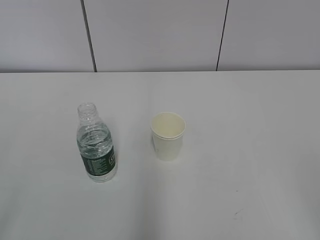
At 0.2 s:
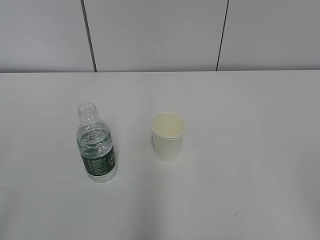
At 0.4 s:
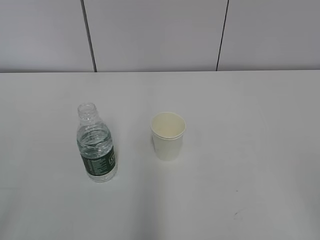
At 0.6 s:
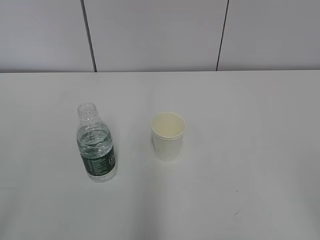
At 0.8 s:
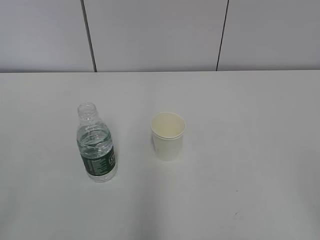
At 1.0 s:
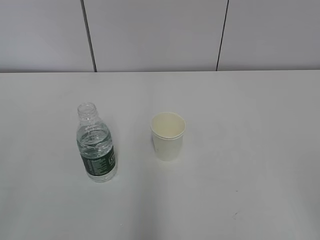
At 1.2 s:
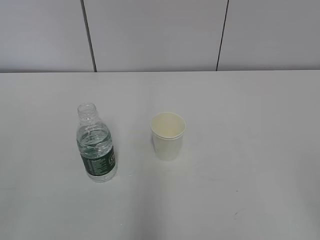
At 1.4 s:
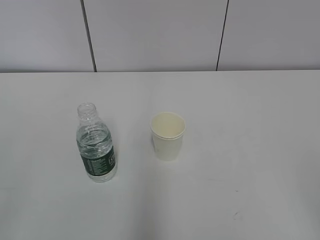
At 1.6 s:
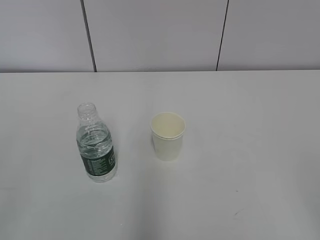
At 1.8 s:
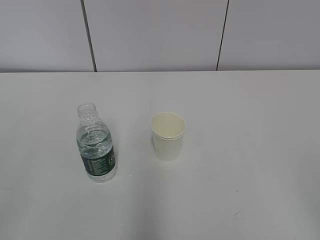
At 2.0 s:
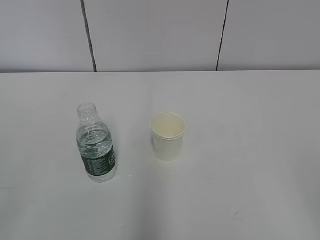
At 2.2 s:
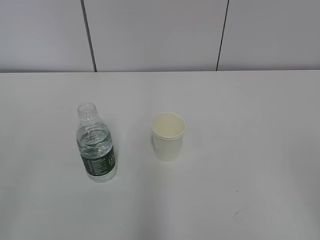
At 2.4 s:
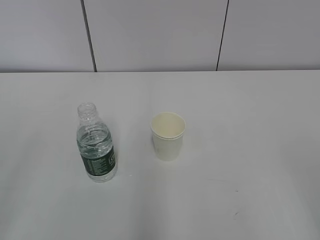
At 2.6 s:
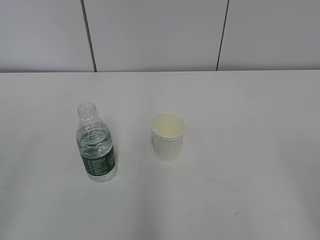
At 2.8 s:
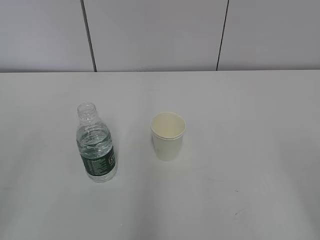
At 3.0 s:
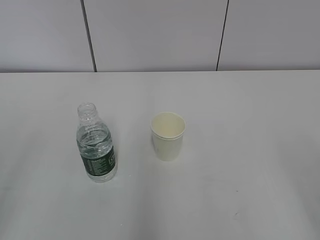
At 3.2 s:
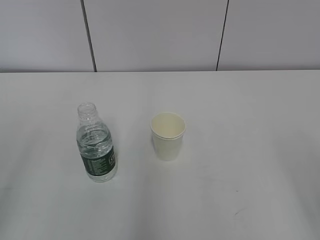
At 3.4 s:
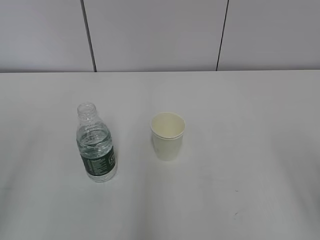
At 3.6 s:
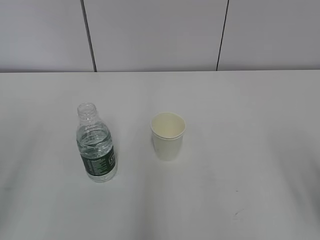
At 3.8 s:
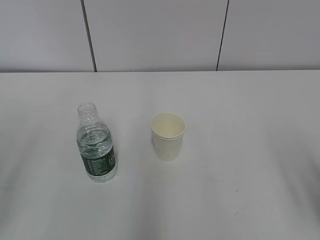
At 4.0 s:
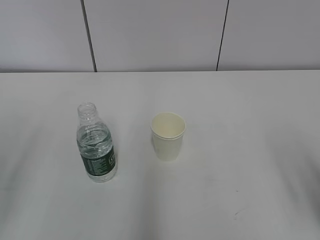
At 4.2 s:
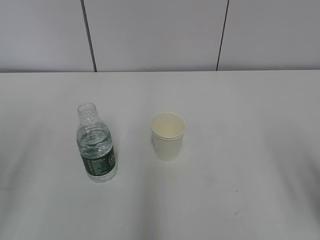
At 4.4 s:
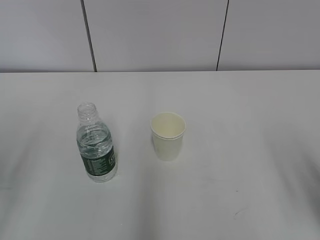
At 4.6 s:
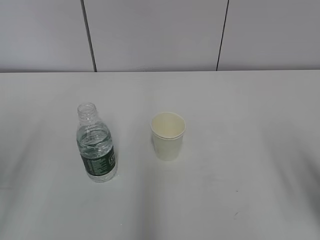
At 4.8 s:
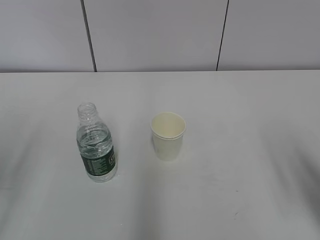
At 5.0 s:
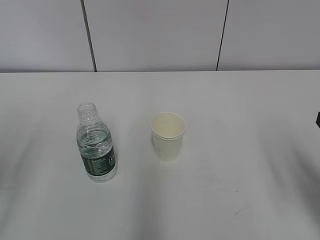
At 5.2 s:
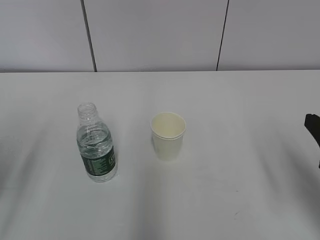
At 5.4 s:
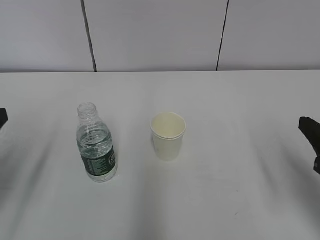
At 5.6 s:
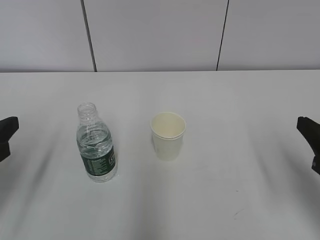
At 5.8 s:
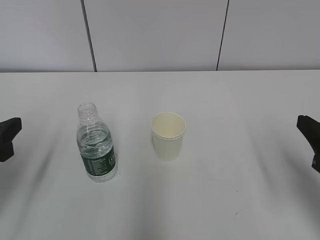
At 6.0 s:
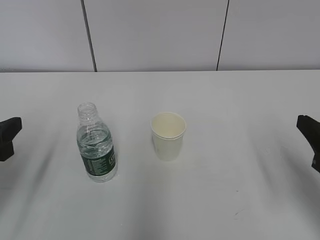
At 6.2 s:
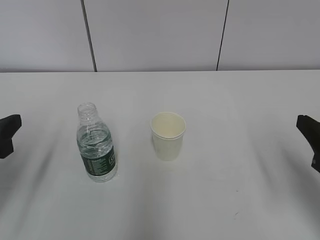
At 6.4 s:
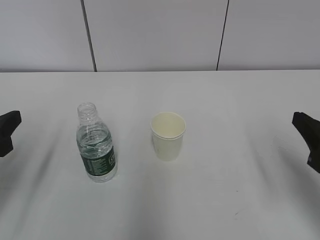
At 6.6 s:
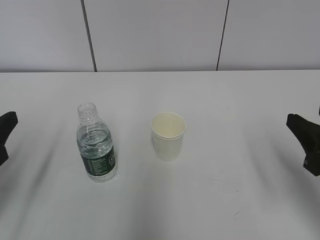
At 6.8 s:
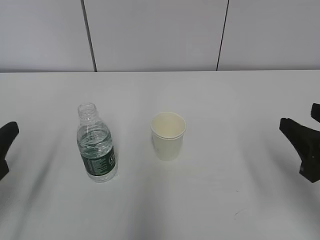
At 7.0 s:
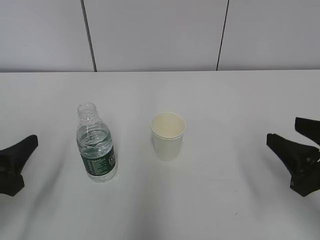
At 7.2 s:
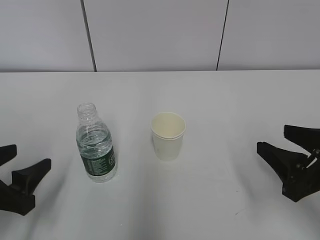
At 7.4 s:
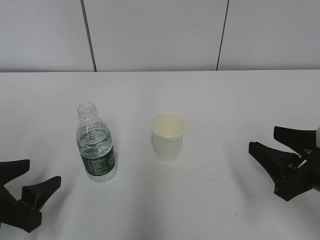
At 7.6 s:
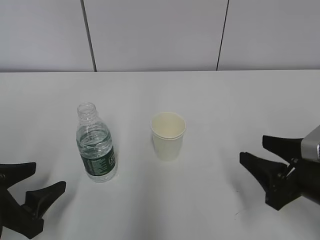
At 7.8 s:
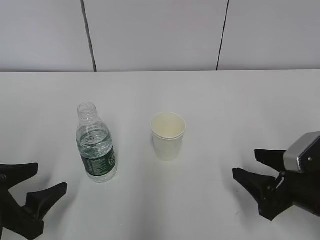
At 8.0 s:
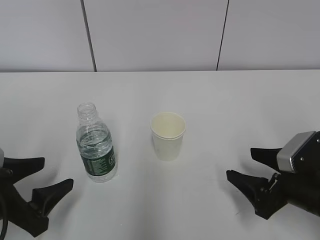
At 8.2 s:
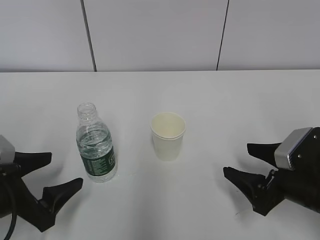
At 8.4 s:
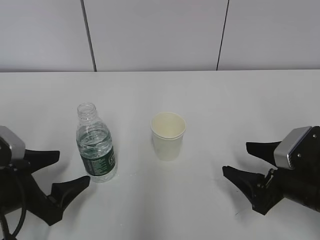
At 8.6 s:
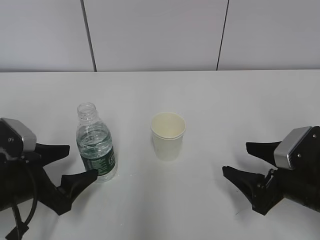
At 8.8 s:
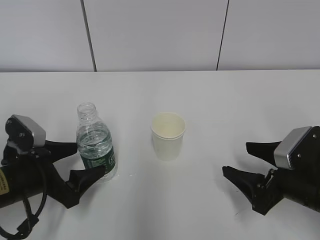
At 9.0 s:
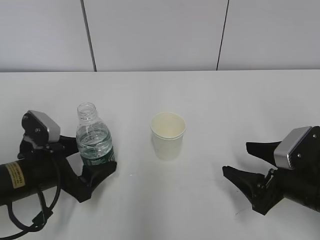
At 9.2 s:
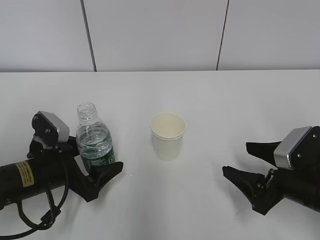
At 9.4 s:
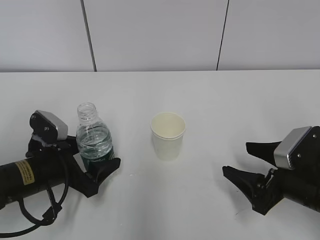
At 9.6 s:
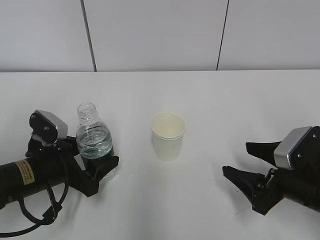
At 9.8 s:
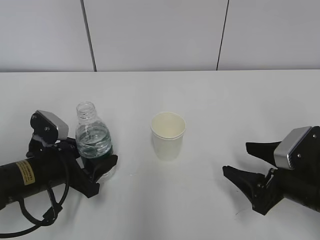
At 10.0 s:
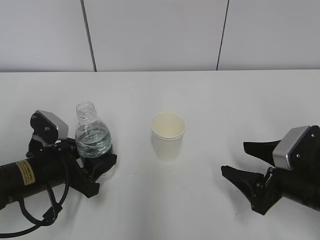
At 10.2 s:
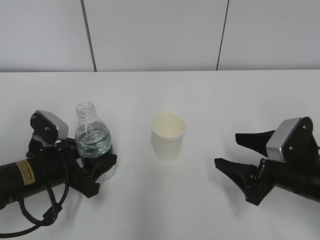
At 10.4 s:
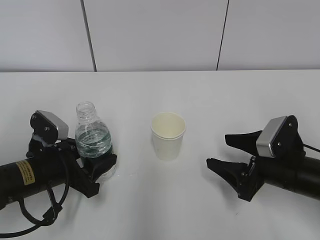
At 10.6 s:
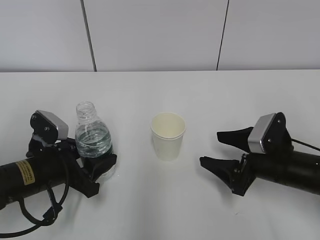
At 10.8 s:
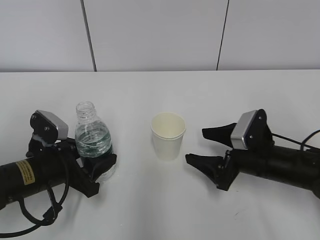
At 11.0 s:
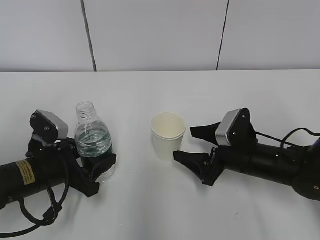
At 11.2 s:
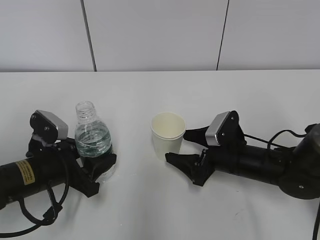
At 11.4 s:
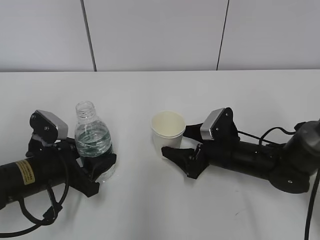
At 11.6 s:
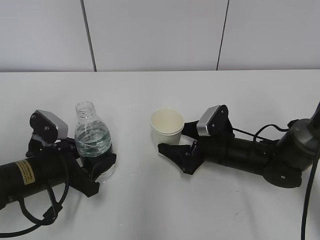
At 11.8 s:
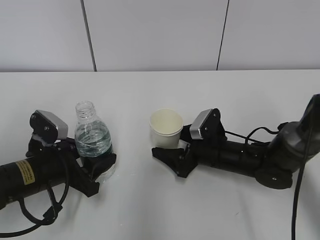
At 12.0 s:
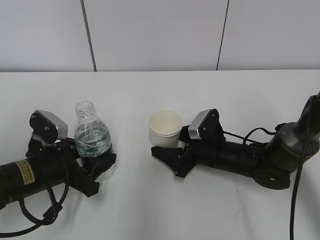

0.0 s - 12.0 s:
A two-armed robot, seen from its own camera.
Step, 0.0 s - 10.2 s: Grab the paper cup with the right hand.
4.4 s - 6.0 s: The left gripper ends up approximately 5 cm from where it was; the right gripper moves some 5 cm.
6.0 s - 7.6 s: The grippers both shift downward by approximately 5 cm.
7.6 s - 9.0 s: The left gripper shifts roughly 10 cm forward, while the right gripper opens up.
9.0 s - 10.4 s: The left gripper closes.
10.4 s - 12.0 s: The right gripper is displaced forward, to the left and downward by roughly 15 cm.

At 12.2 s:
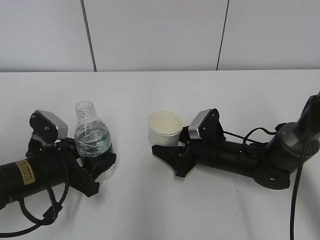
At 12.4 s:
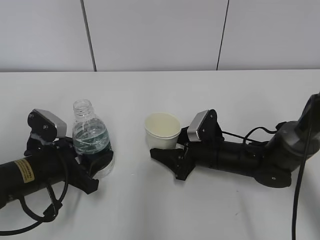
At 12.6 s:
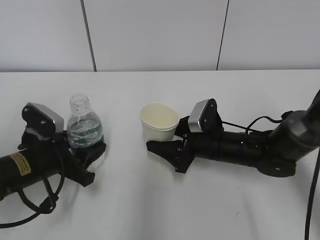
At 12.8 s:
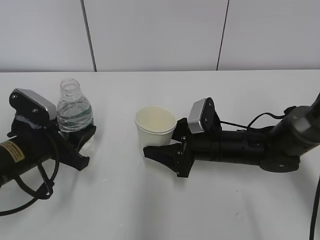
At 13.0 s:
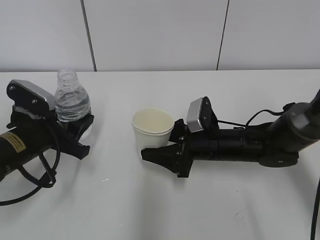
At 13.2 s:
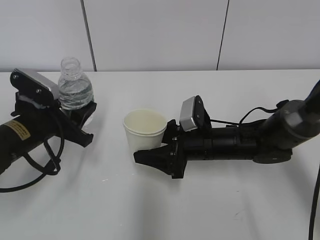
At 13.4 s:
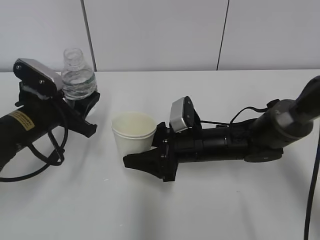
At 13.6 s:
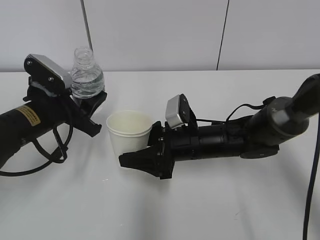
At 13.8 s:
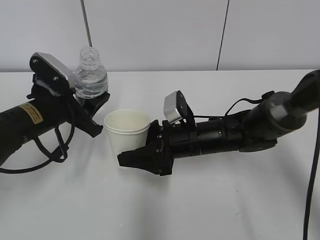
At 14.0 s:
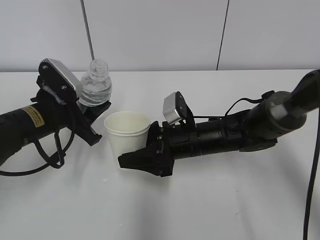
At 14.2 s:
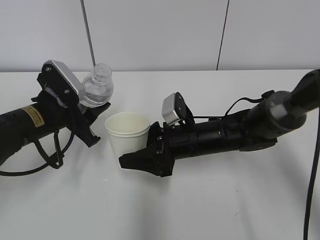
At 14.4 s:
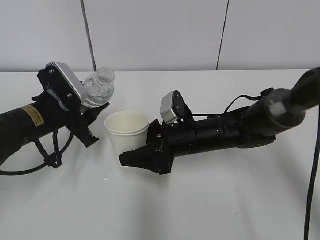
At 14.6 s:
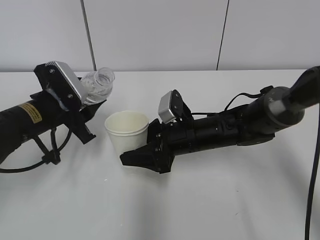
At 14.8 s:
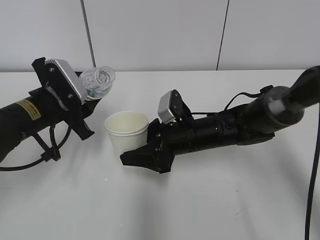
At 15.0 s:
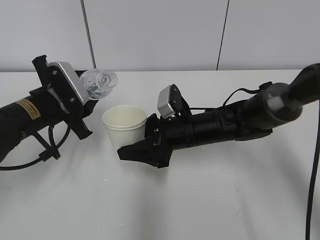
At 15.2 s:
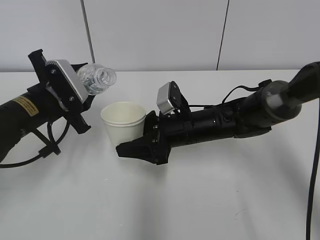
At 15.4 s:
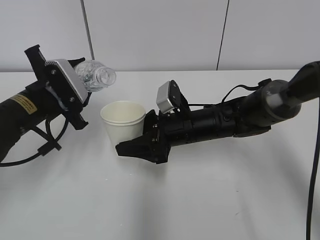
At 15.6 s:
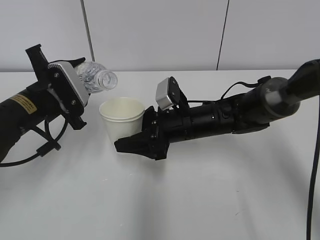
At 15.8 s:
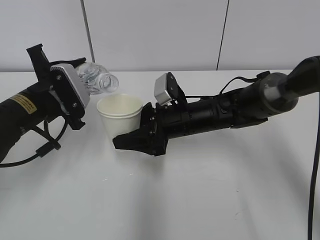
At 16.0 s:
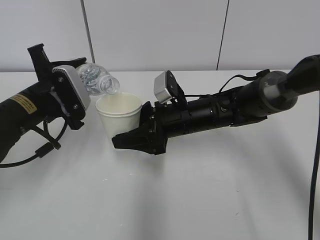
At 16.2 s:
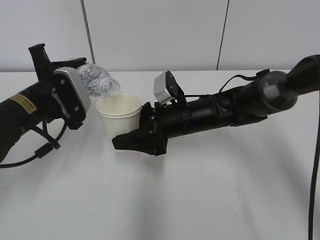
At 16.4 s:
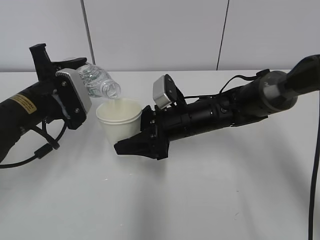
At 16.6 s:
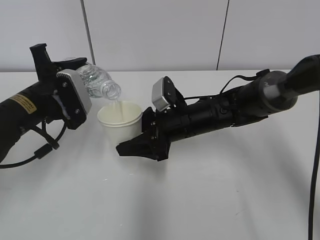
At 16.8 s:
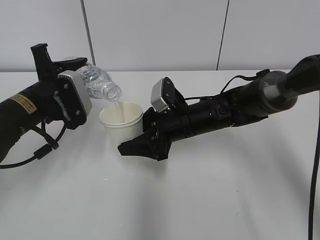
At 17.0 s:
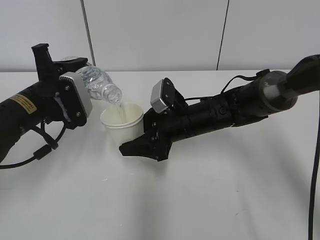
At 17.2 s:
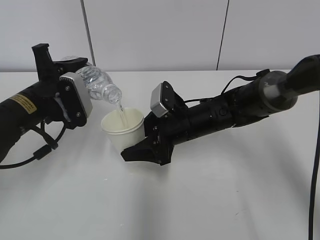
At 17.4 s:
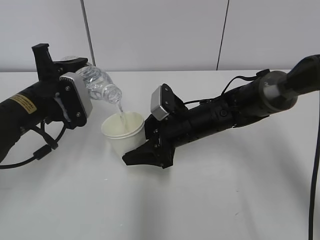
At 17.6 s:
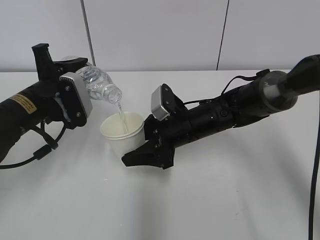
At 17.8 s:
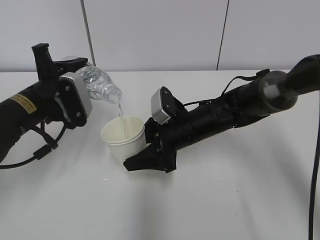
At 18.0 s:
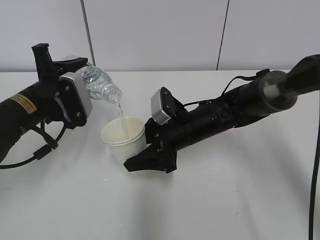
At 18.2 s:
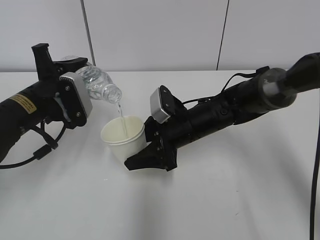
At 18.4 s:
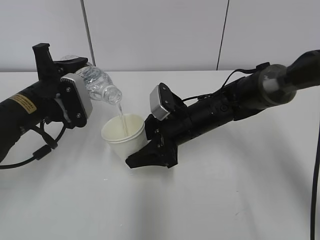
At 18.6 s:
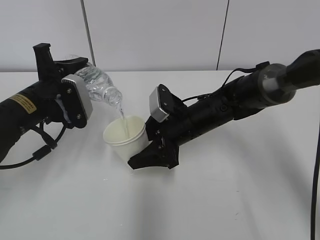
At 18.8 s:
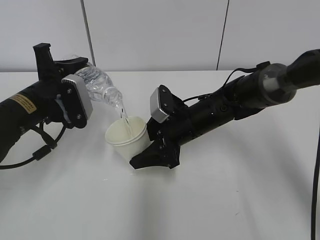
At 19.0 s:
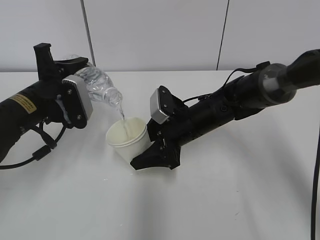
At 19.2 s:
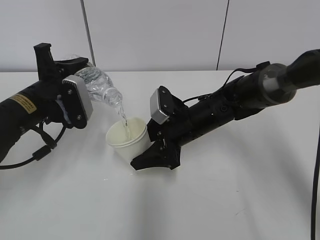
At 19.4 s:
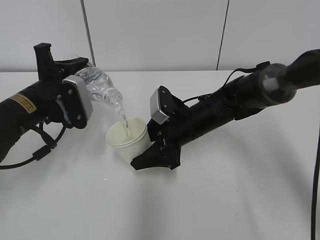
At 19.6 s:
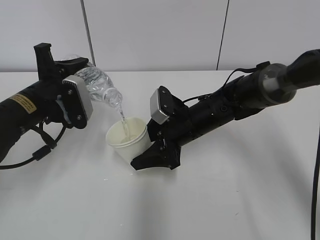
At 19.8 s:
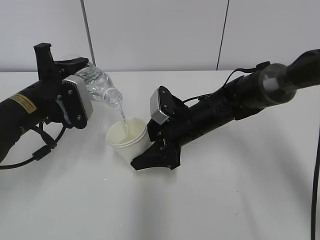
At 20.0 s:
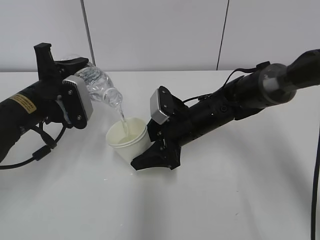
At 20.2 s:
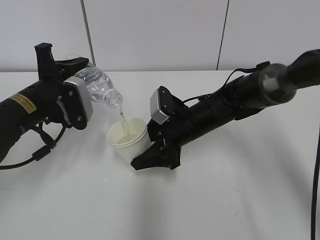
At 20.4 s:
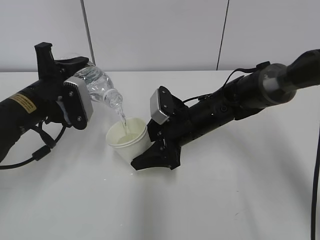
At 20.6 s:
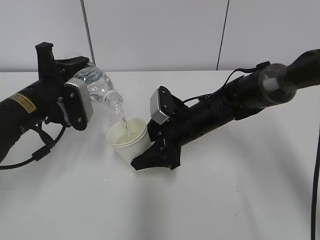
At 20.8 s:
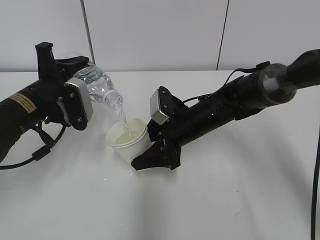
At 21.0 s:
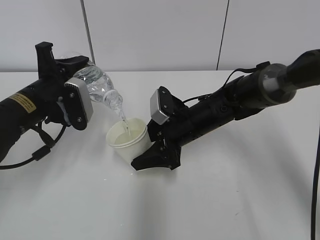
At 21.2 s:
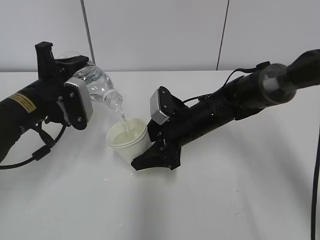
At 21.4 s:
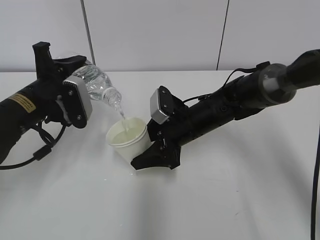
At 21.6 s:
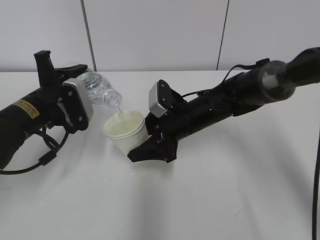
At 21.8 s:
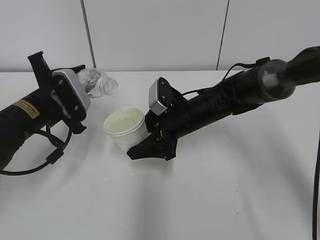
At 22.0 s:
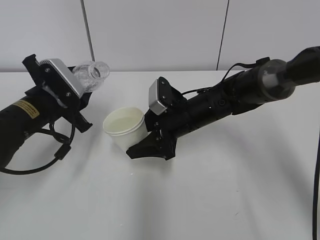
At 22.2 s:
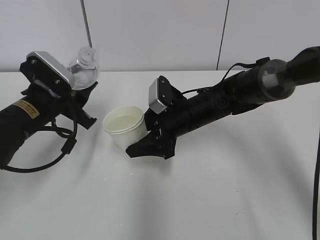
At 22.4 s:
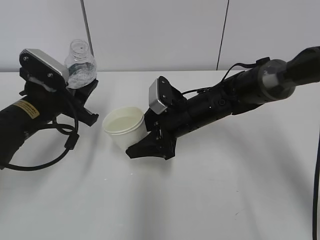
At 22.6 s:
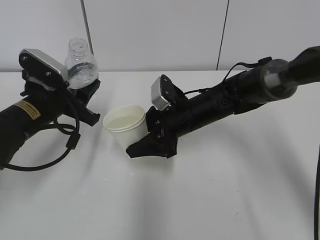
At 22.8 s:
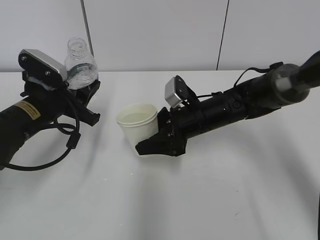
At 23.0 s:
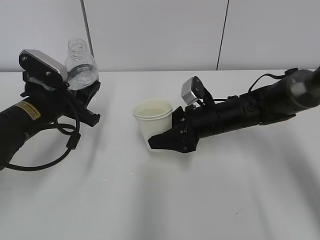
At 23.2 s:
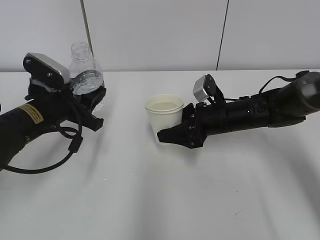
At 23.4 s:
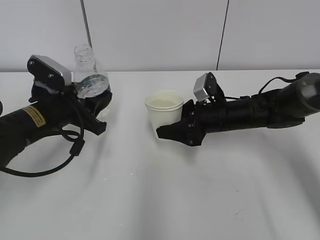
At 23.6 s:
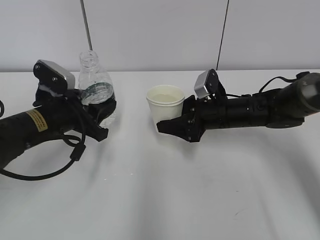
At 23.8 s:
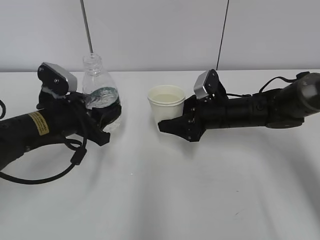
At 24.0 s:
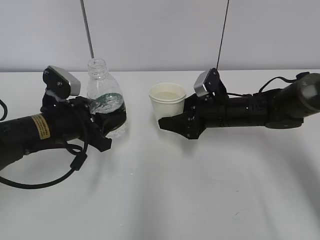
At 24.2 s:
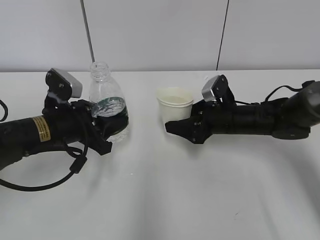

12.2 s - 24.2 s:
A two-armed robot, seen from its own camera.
Step, 13.8 s - 18.0 s: Fill water with the right hand.
Step, 13.8 s - 18.0 s: Pour water with the left hand.
Step, 20.2 s - 21.8 s: Place the paper cup with the right hand.
12.2 s - 13.8 s: The left gripper is displaced forward and upward by roughly 10 cm; the right gripper goes some 10 cm upward and to the left.
15.2 s - 16.6 s: There are only small adjustments of the grippers.
16.6 s - 19.8 s: The grippers make only small movements.
19.8 s - 21.2 s: The two grippers keep their place.
22.6 s - 24.2 s: The right gripper goes some 10 cm to the right.
